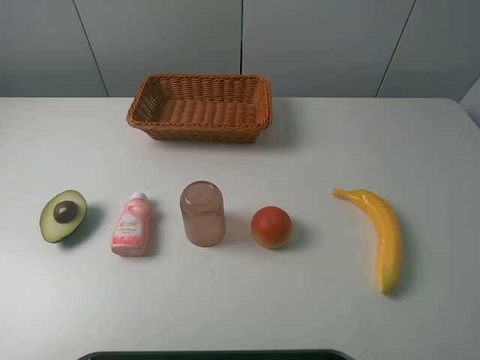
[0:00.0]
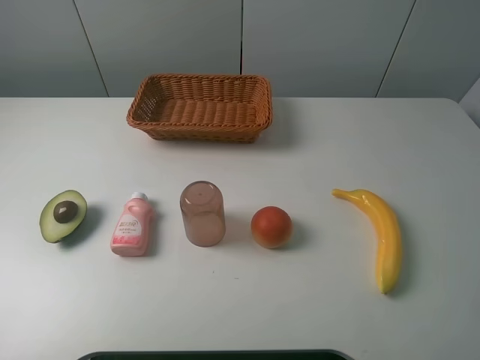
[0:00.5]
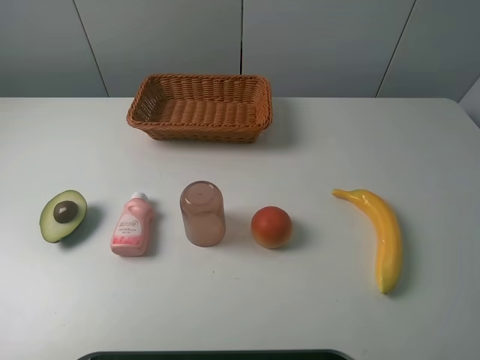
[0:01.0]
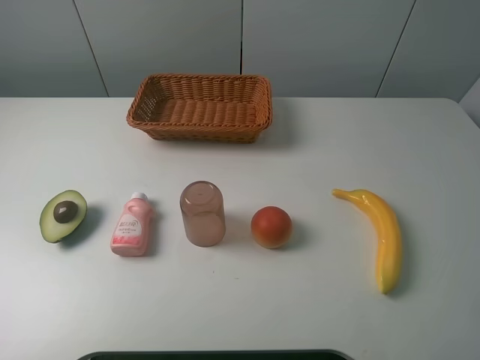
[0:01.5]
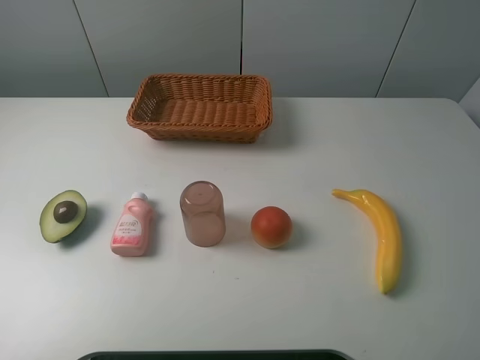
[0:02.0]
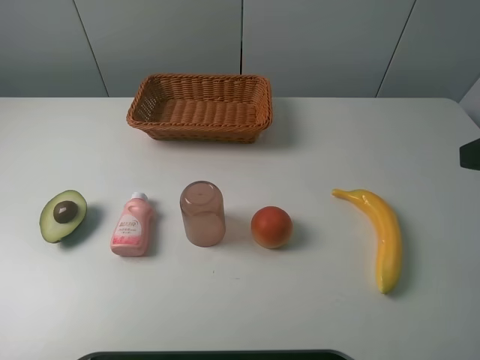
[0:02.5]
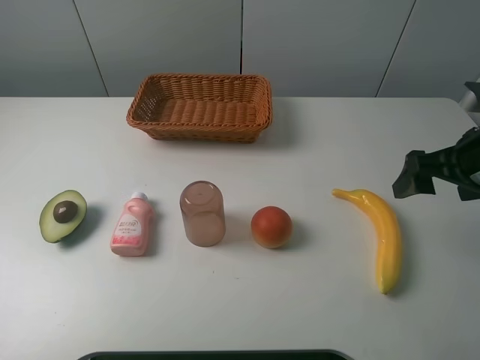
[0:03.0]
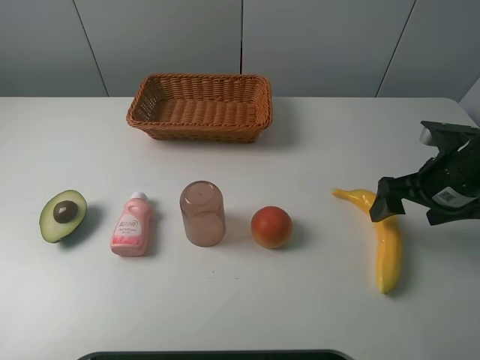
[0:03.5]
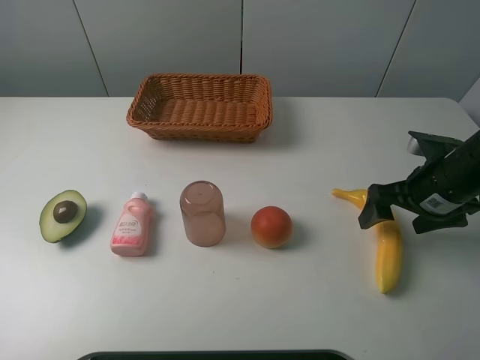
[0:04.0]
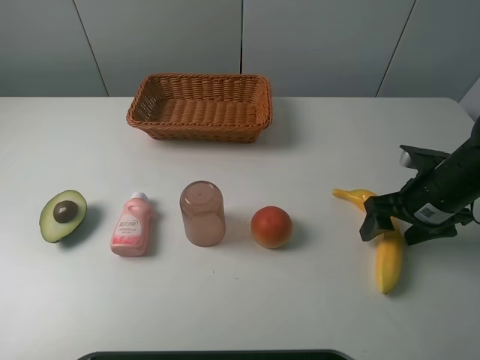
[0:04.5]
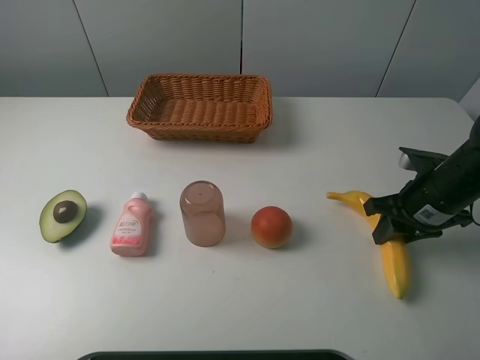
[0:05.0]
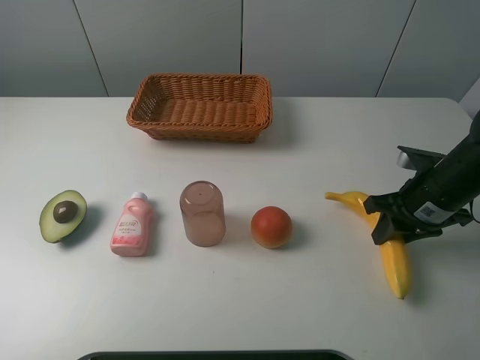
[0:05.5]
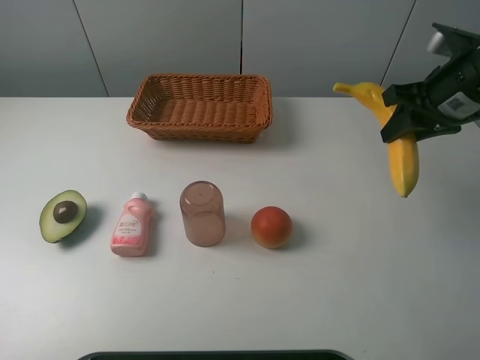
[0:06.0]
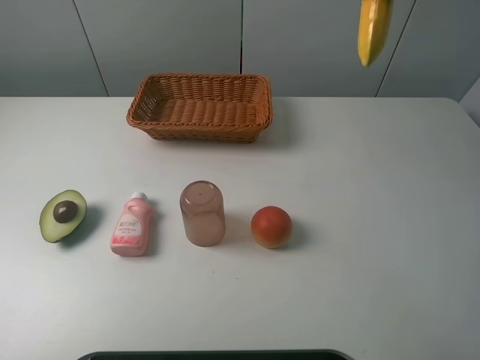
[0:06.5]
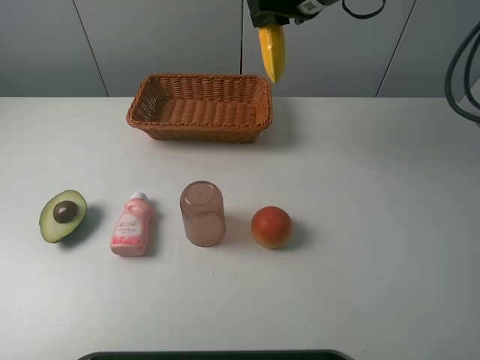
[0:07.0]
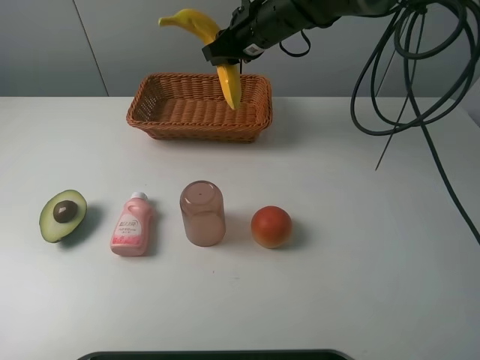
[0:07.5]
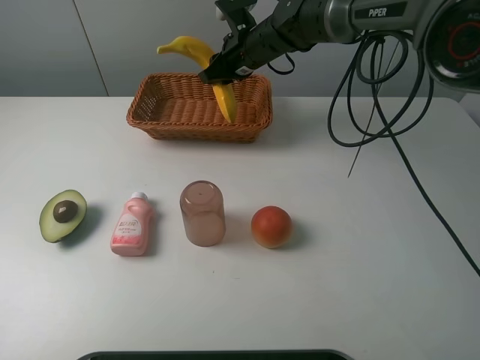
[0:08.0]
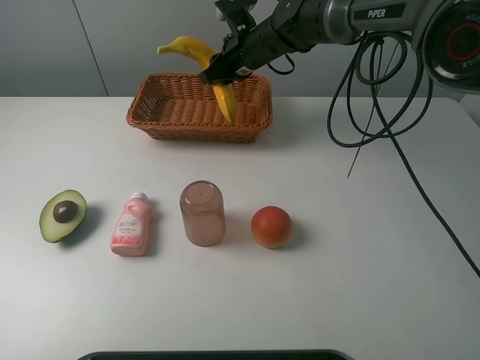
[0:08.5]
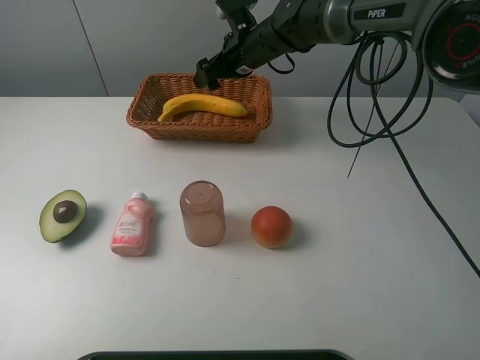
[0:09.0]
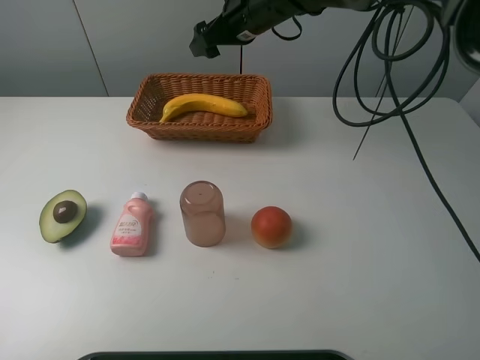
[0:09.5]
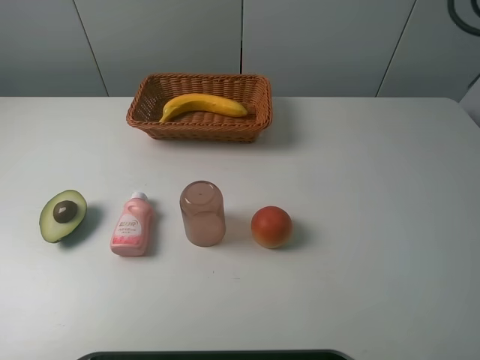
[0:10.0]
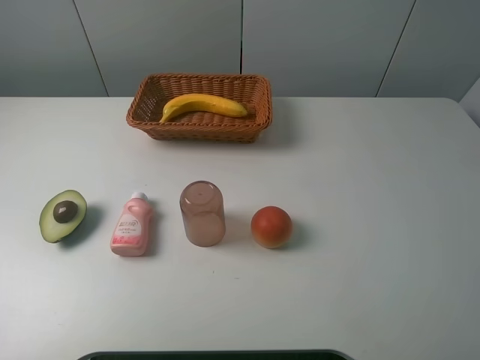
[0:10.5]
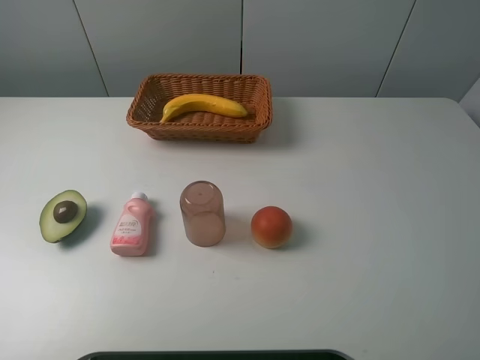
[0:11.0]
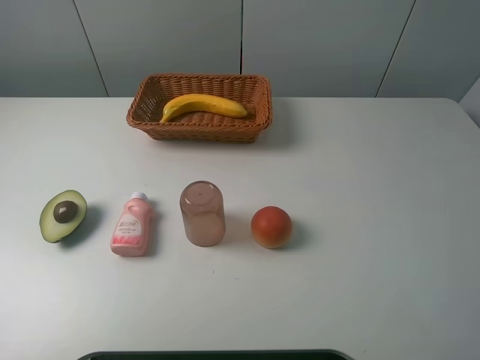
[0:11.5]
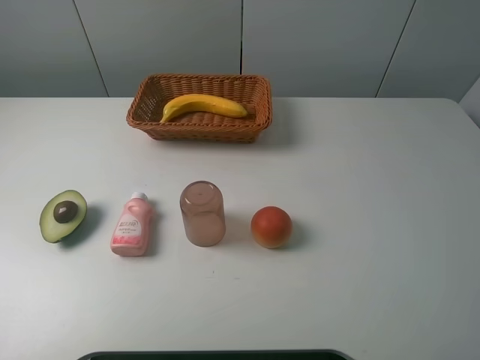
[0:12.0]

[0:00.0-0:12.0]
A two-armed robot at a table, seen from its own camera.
Task of the whole recording: randomly pick up an item from the table and put it in the basket.
Step, 0:00.0 to 0:04.5: Grasp the banana with the right gripper.
Step, 0:05.0 to 0:09.0: Place the banana into the basket with the right gripper.
0:02.0 to 0:04.0: The right gripper moves forward and downward, some 30 cm.
0:04.0 to 0:06.0: The right gripper moves upward and forward, roughly 15 cm, and closes.
0:06.0 to 0:08.0: The right gripper is displaced to the left and forward by about 30 cm.
0:08.0 to 0:10.0: The right gripper moves upward and to the right, about 30 cm, and opens.

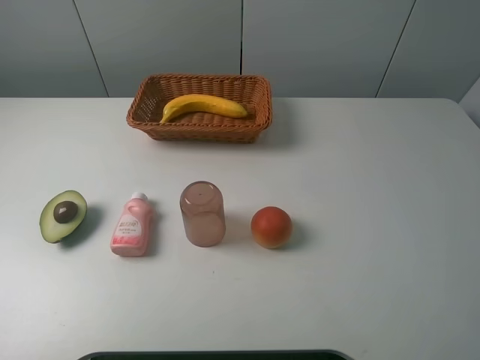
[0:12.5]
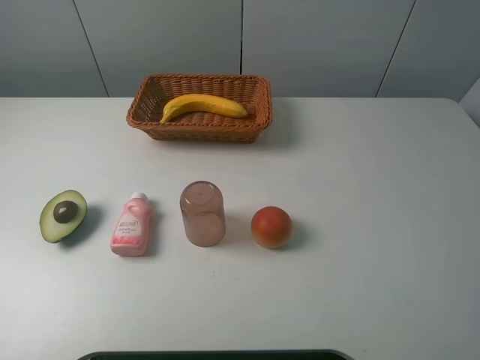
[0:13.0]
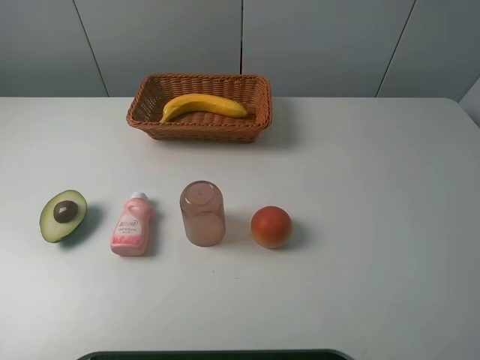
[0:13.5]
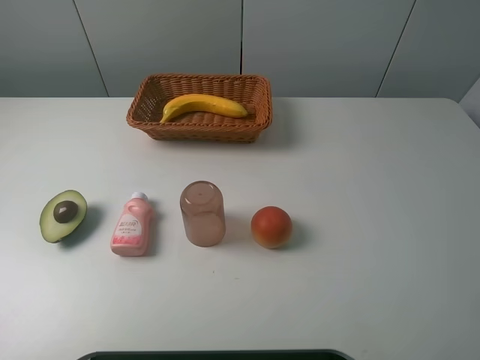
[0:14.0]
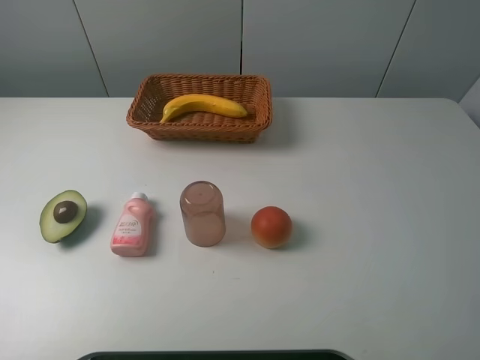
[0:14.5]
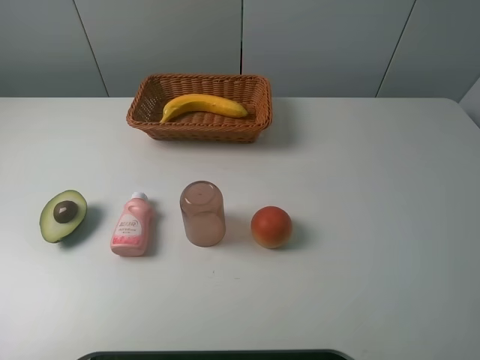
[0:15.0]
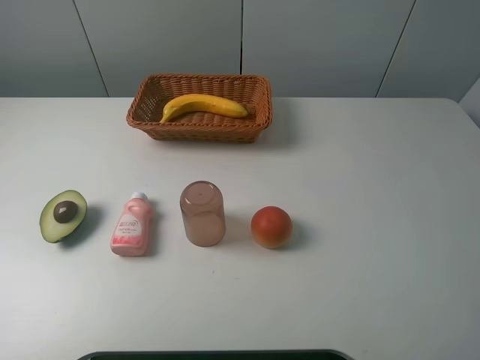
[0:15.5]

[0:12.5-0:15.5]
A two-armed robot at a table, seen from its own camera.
Task of the whole recording: randomly pick up an item from the table and put it in the basket.
0:14.0 to 0:15.5: Both grippers stay about where they are.

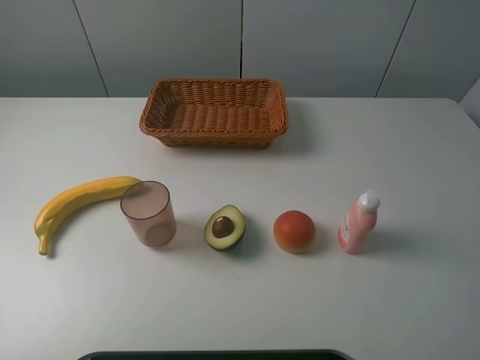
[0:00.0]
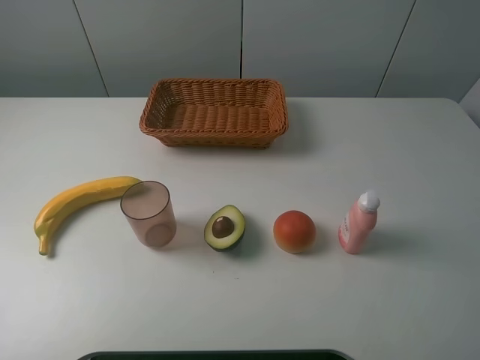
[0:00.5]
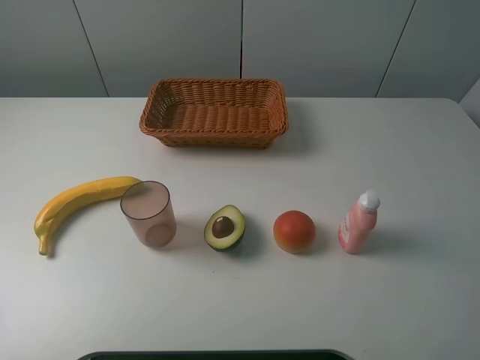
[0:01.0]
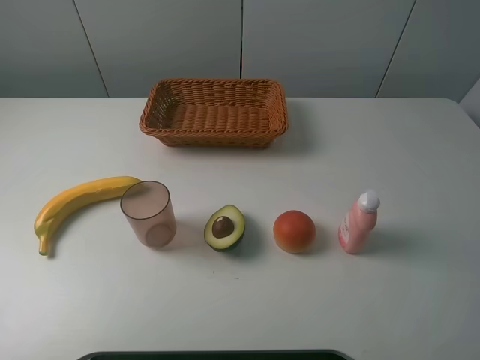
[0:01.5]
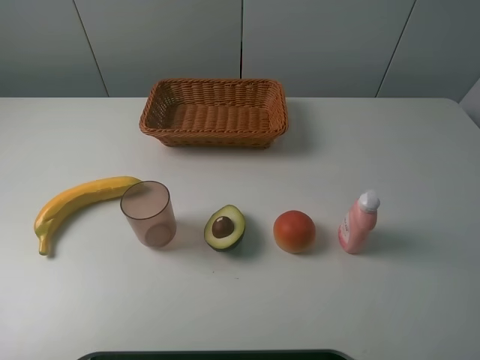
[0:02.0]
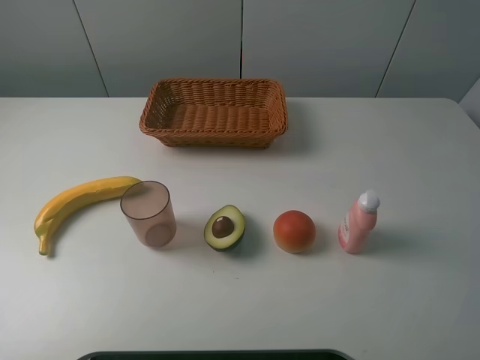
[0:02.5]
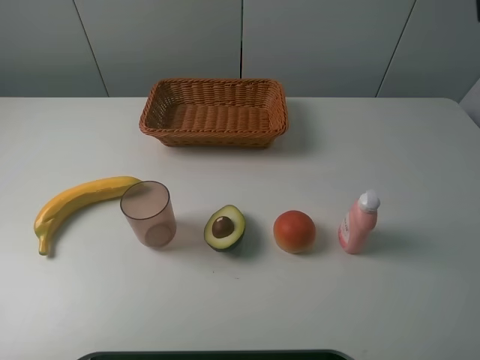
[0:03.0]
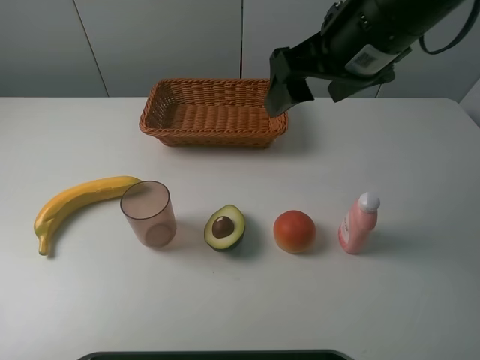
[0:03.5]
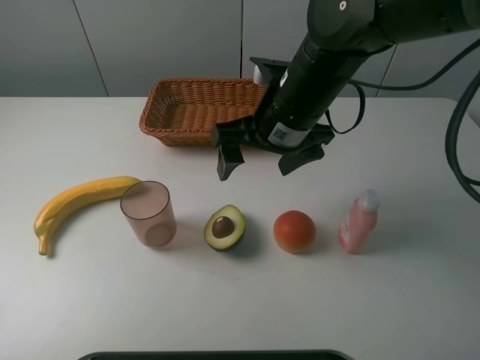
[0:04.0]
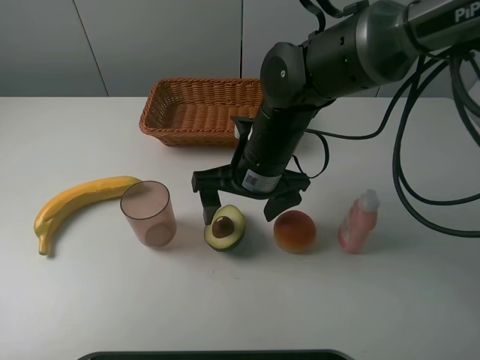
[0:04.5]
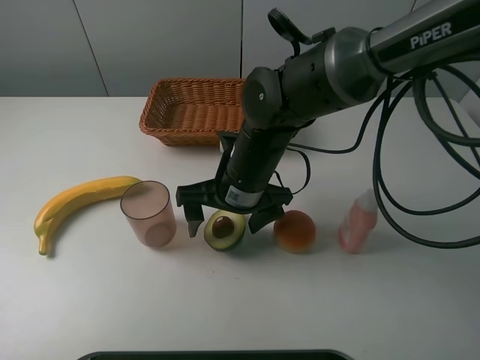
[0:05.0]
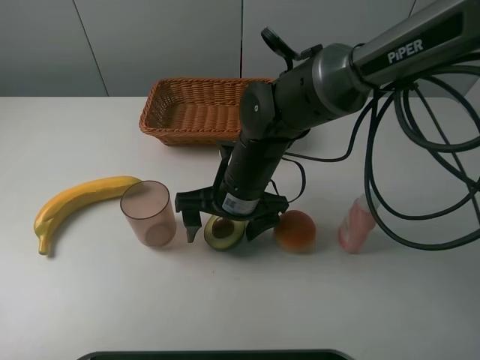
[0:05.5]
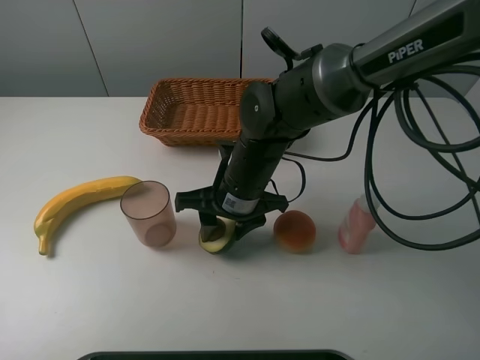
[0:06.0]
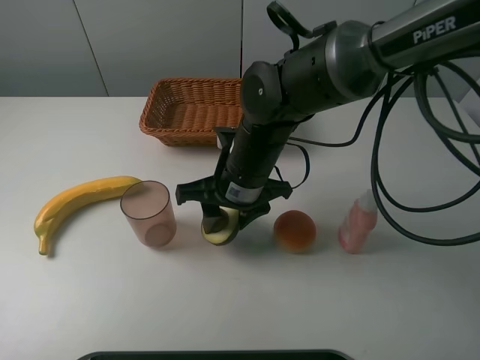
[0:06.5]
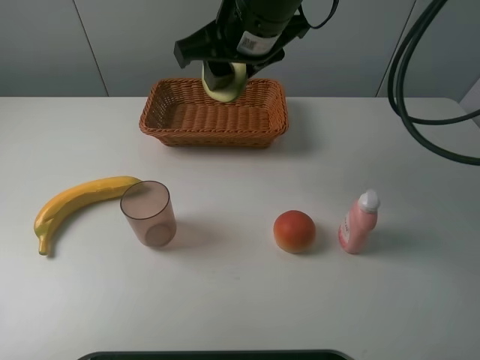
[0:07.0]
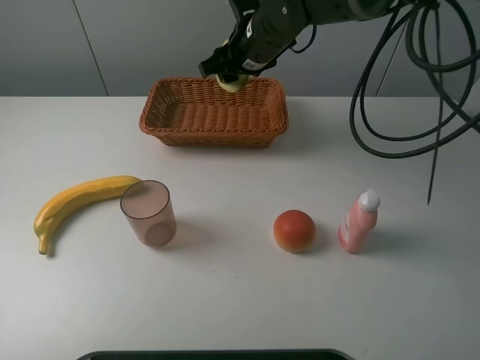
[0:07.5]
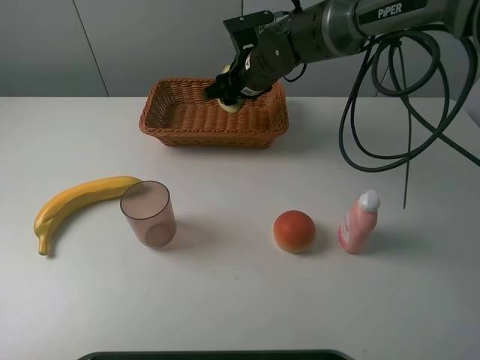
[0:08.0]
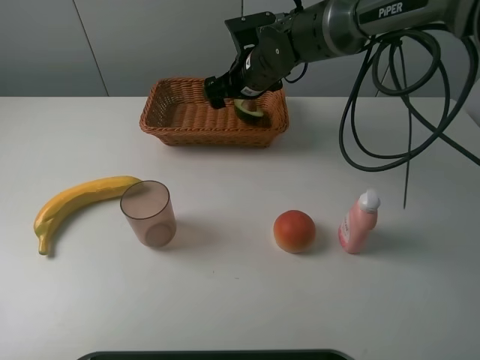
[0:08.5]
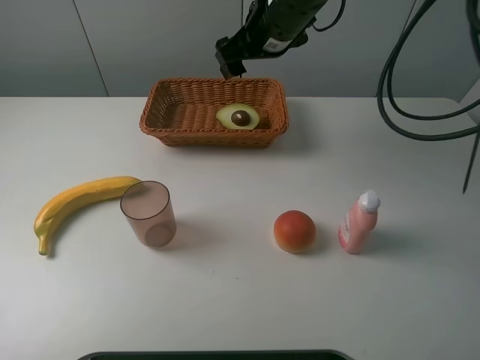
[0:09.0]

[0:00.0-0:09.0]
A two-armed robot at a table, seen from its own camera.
Task of the whole recording: randomly pick up an item from the table and put it in the basket.
Step, 0:00.0 to 0:06.0: Grasp the avocado with the right gripper.
Step, 0:06.5 to 0:08.0: Place the avocado into the basket with the right gripper.
0:00.0 to 0:02.0: Both grippers stay about where they are.
0:02.0 to 0:04.5: The right gripper heads forward, to the left and downward, covering approximately 40 cm.
0:04.5 to 0:07.0: The right gripper is displaced upward by about 15 cm, and closes its fingers.
0:07.0 to 0:09.0: The right gripper heads forward, covering approximately 5 cm, travels downward and back again, about 15 cm each way, and opens its fingers.
